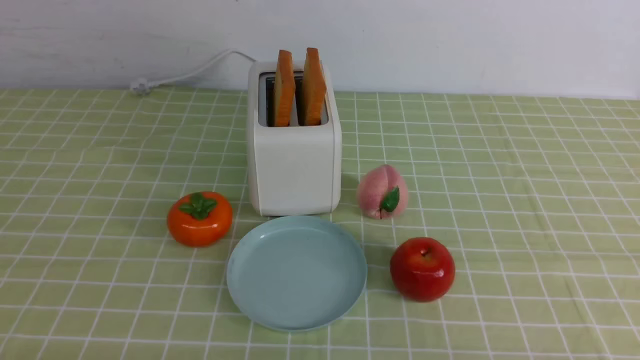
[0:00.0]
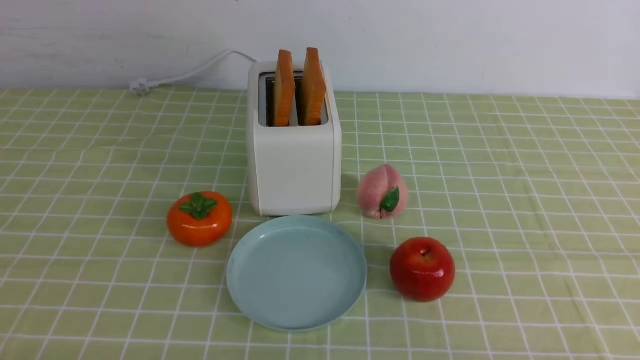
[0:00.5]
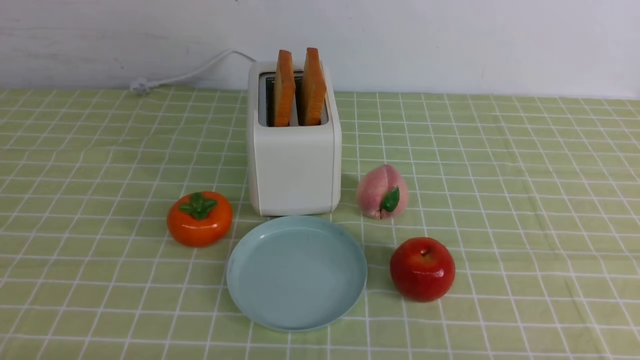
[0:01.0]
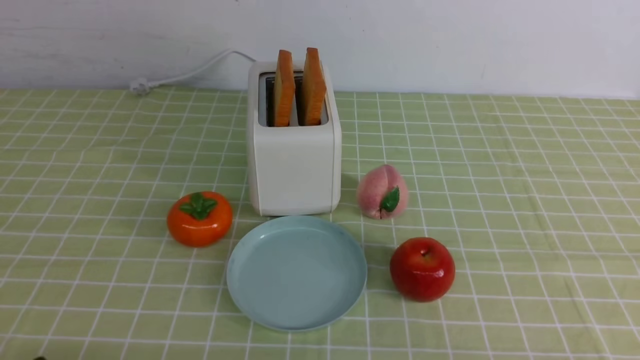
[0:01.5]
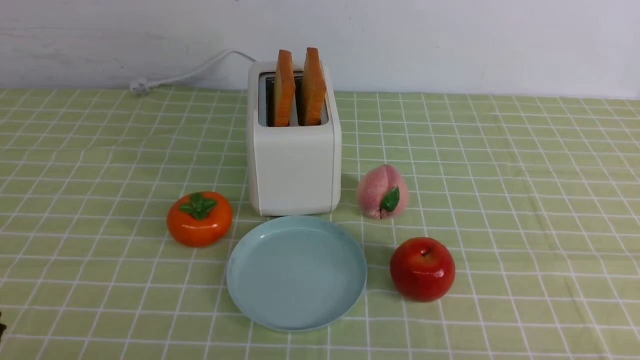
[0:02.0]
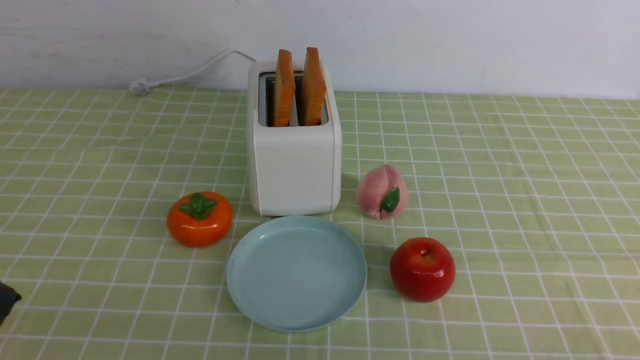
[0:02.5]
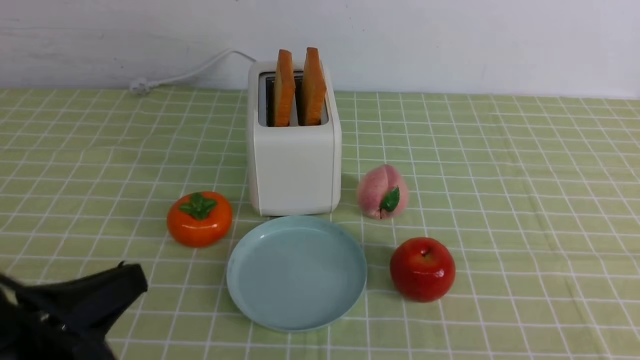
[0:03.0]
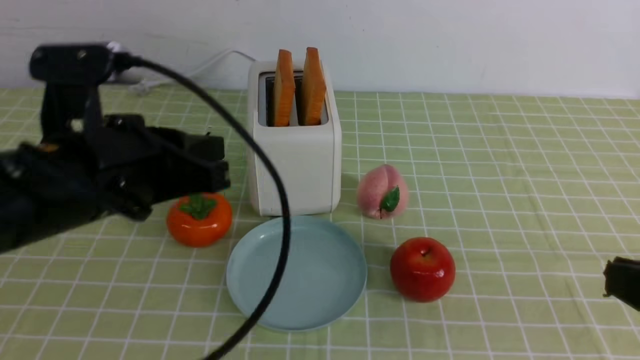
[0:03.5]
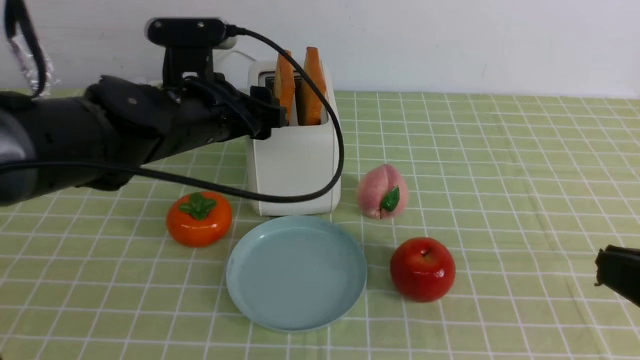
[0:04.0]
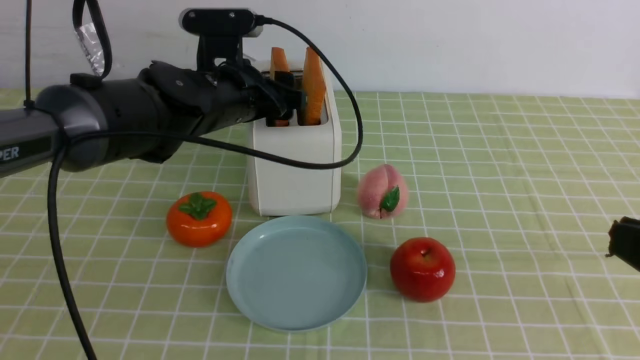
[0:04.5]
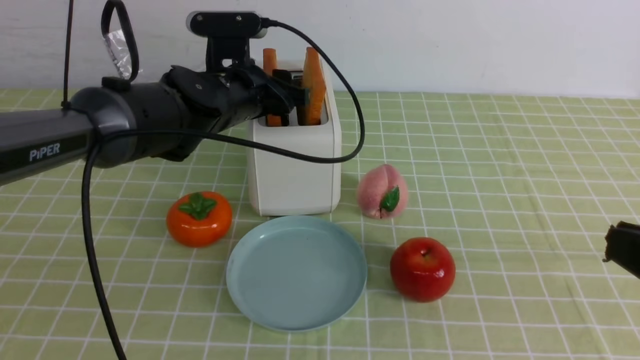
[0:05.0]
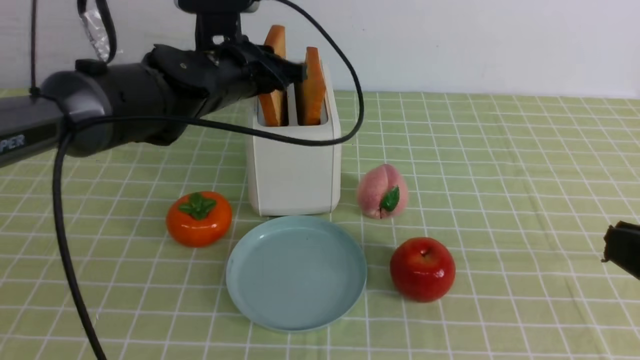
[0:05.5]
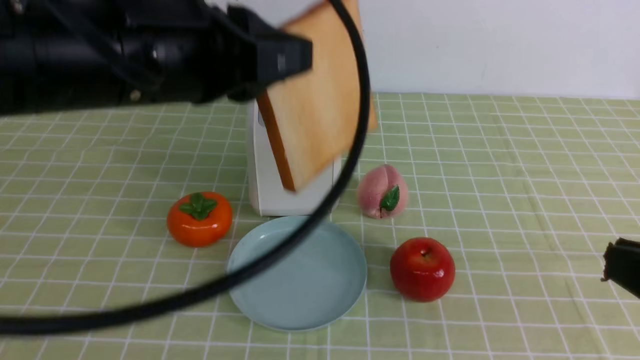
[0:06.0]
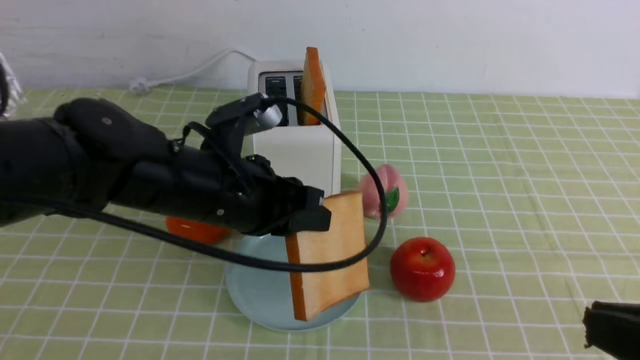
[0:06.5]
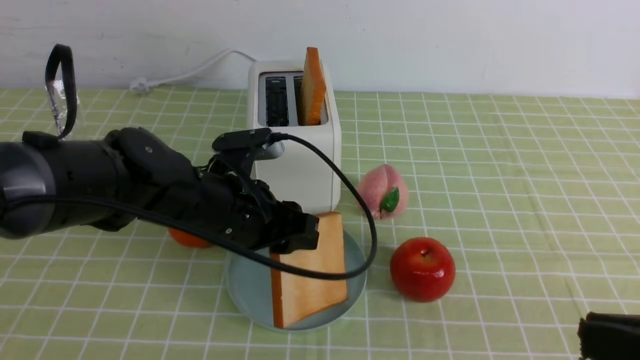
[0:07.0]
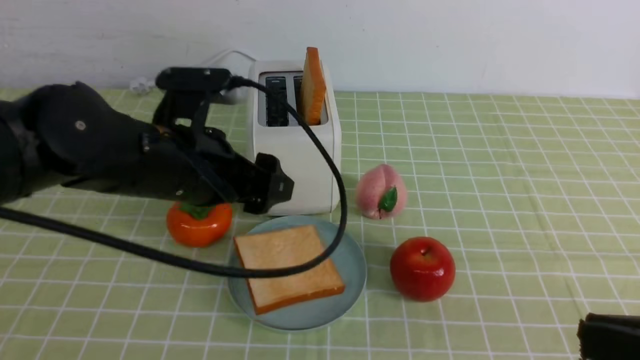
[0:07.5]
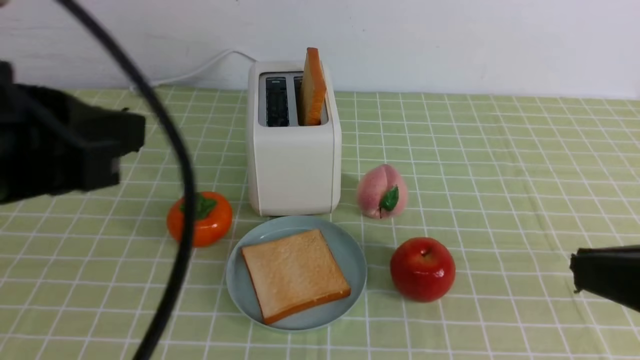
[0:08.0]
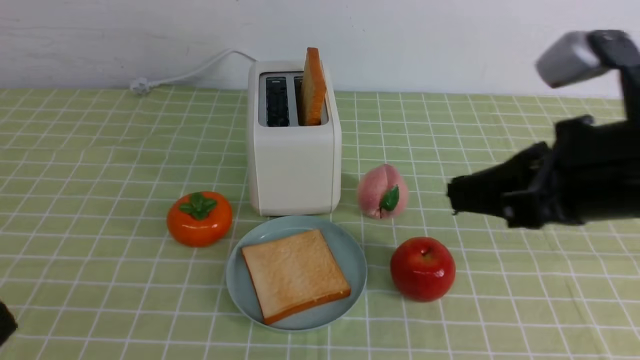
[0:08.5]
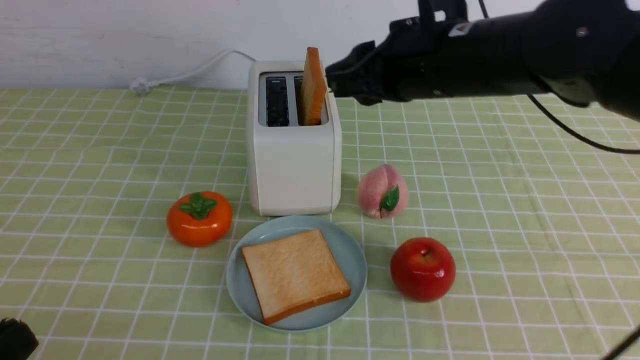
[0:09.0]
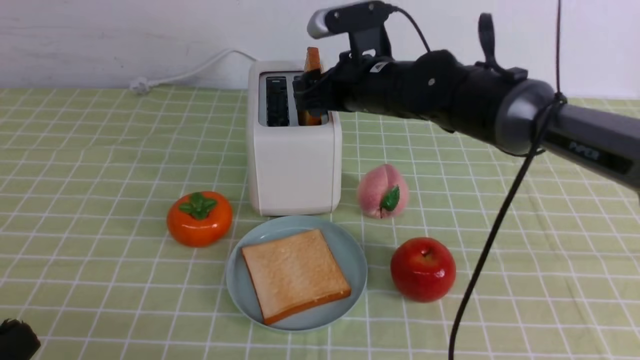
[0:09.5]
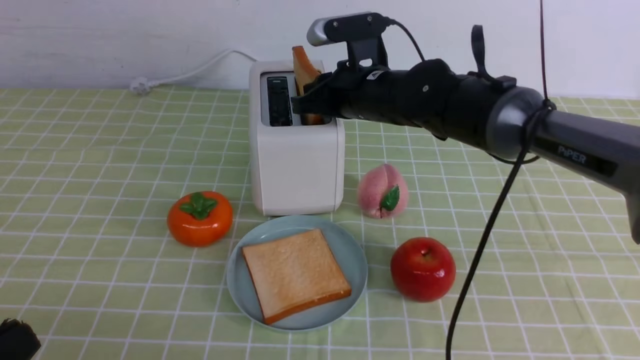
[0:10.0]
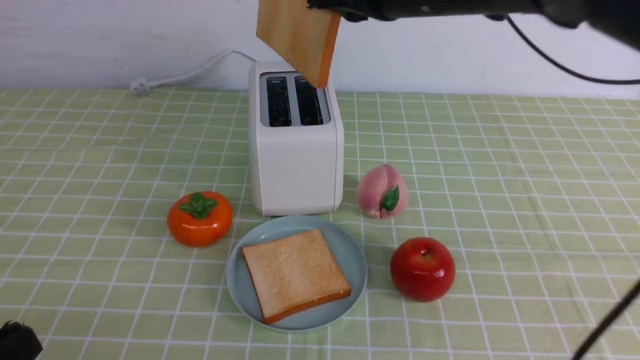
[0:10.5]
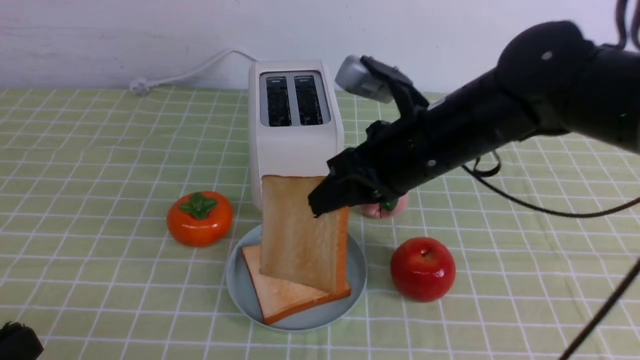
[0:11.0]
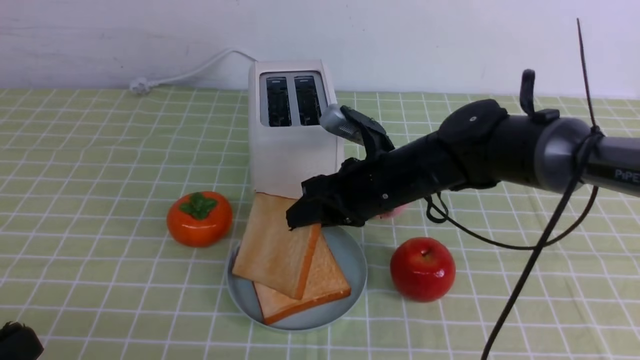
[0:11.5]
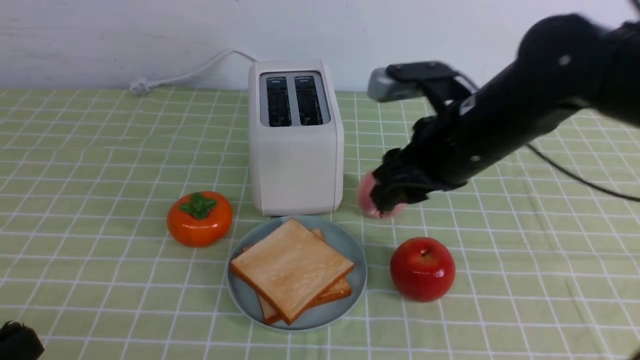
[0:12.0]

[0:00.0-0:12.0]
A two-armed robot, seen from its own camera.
Task of the whole recording: take toasted bread from bread machine on green coffee tablecloth place on plate.
Step, 0:00.0 to 0:05.5: use the left arm to take out a slice of bread.
Step, 0:06.0 to 0:07.5: use the left arm to put a slice of bread into the empty plate.
Step, 0:08.0 to 0:10.0: use the right arm to take out a slice of bread.
0:02.0 to 0:04.0: The right gripper goes some 15 cm upward, and closes up; the left gripper goes approximately 35 cm forward and to the right, and opens up.
0:04.0 to 0:06.0: The left gripper moves backward and upward, about 15 cm, and closes.
0:06.0 to 0:08.0: The left gripper is displaced backward and to the left by roughly 15 cm, and opens, then closes again.
0:08.0 to 0:10.0: The left gripper shifts roughly 15 cm downward and backward. Meanwhile the right gripper heads forward and to the left, covering some 40 cm, and opens, then closes once more.
0:10.0 to 0:12.0: The right gripper swings up and down, roughly 20 cm each way, with 2 reversals, and opens up.

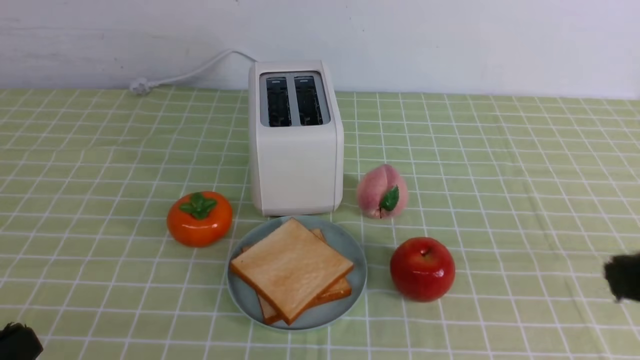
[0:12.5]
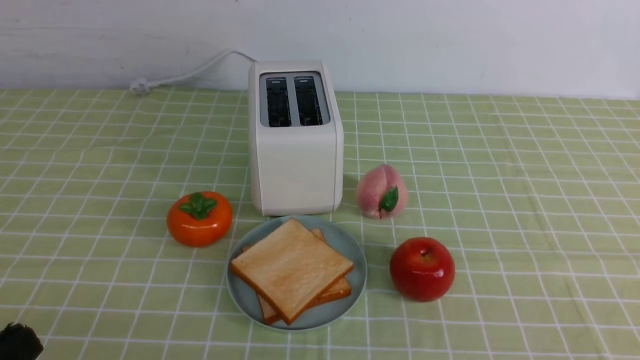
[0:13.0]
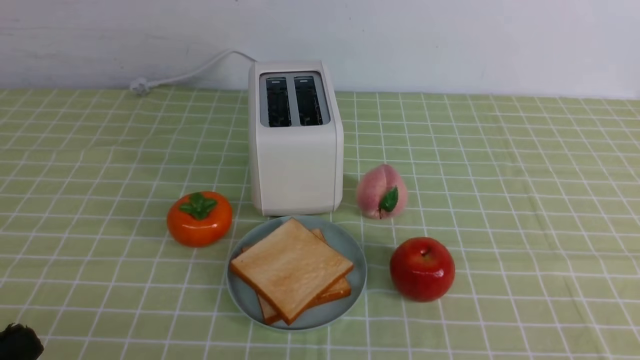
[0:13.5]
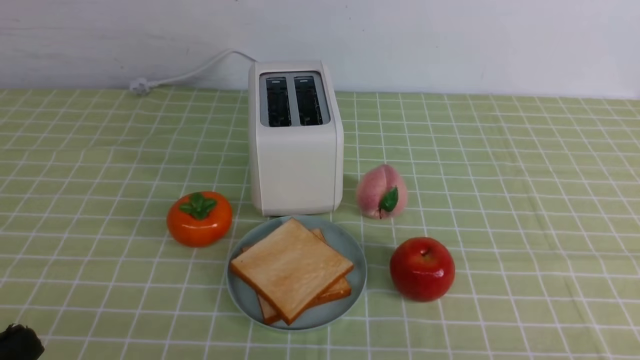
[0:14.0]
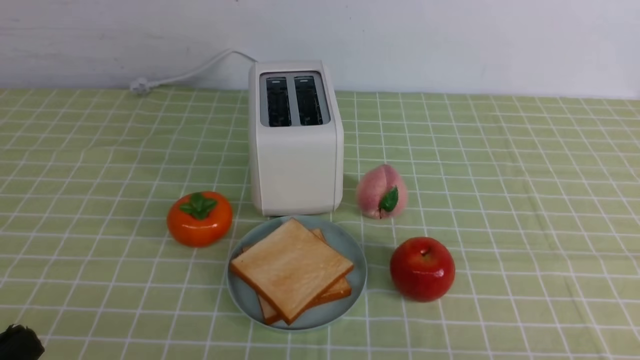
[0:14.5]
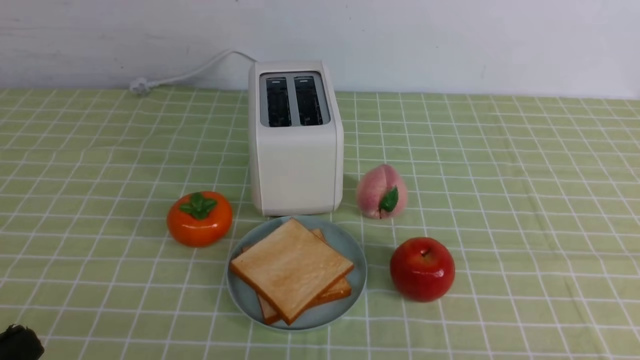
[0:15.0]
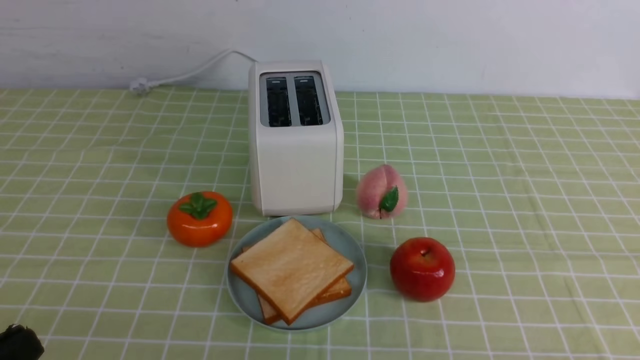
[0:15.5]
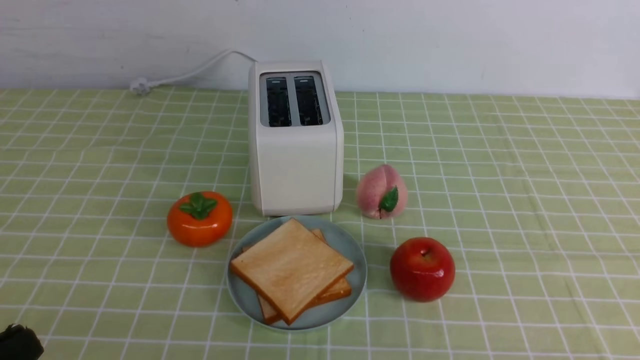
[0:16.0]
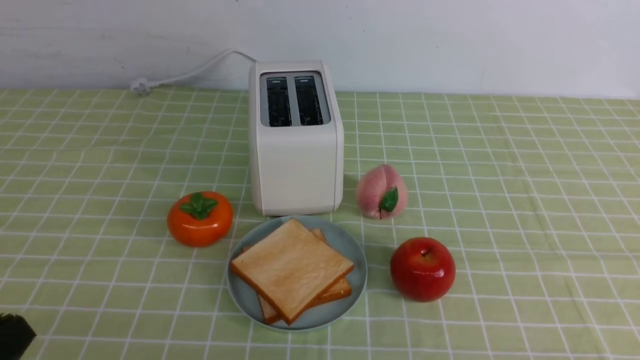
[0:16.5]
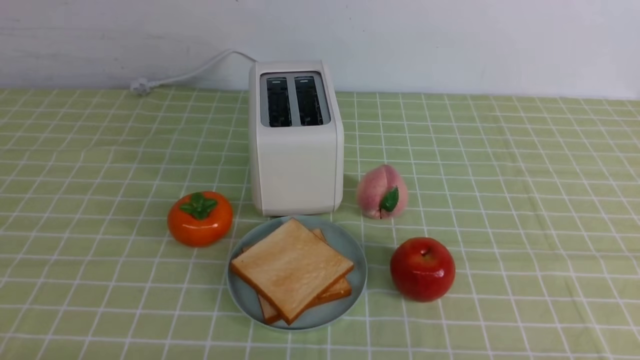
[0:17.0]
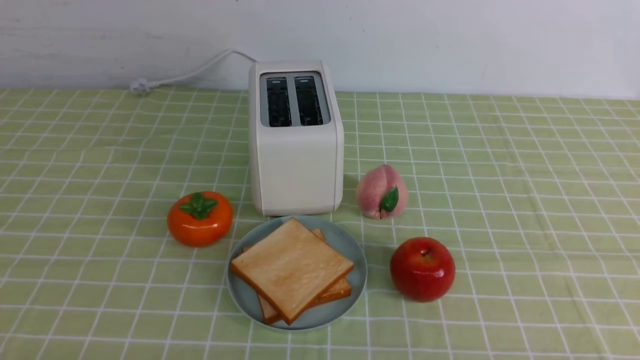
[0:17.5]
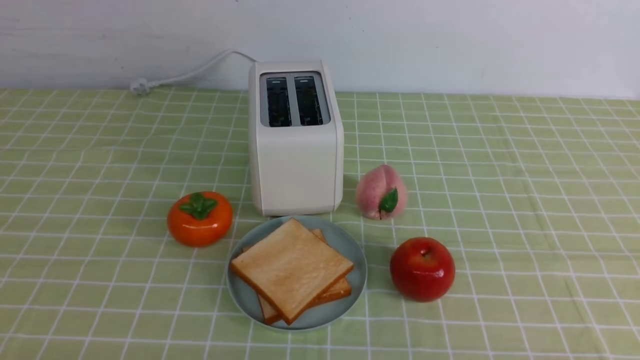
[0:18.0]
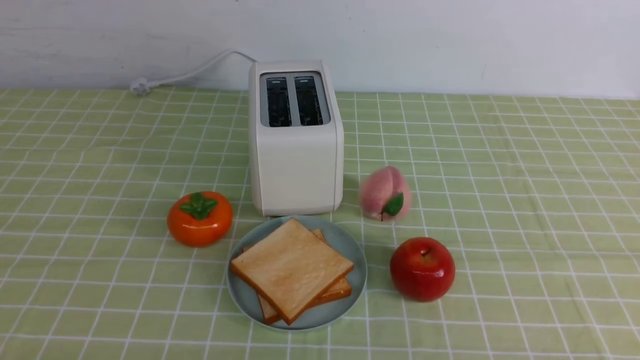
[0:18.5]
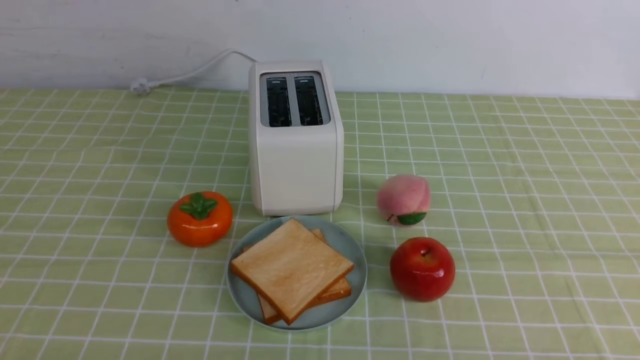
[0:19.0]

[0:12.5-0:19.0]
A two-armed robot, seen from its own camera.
Task of the whole recording: take toasted bread from bread machine on green coffee tablecloth place on plate.
0:12.5 to 0:14.5: The right gripper goes roughly 20 cm downward.
